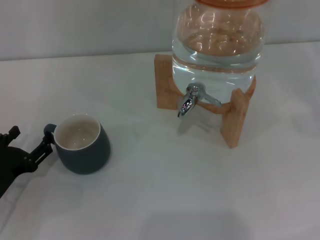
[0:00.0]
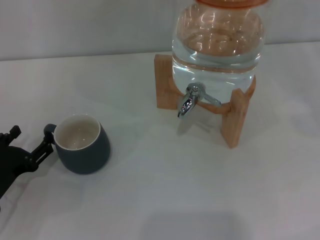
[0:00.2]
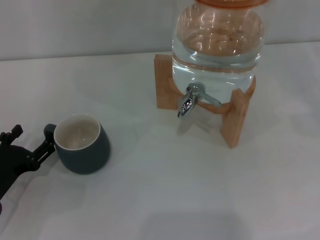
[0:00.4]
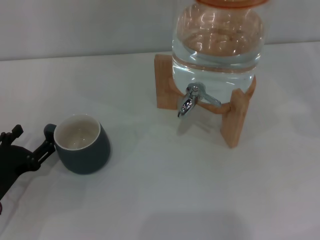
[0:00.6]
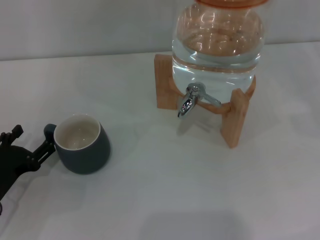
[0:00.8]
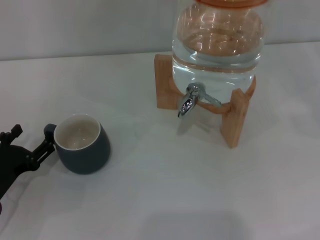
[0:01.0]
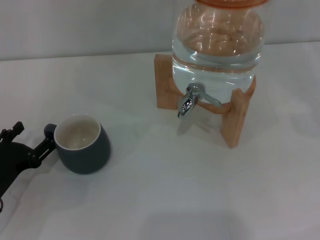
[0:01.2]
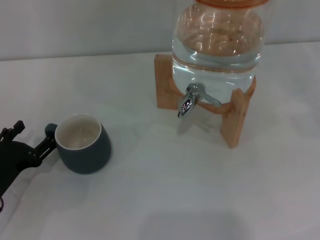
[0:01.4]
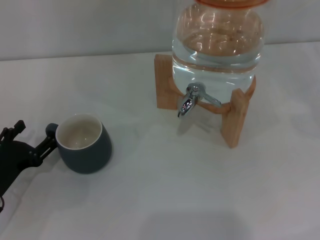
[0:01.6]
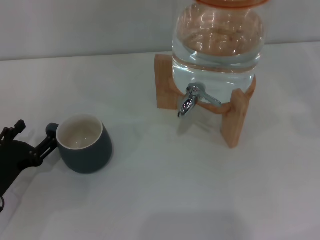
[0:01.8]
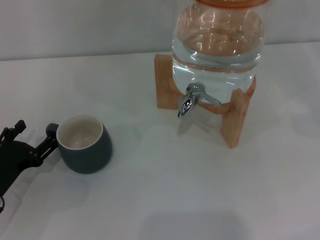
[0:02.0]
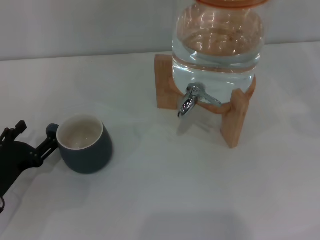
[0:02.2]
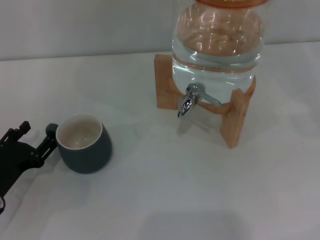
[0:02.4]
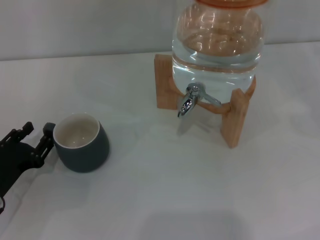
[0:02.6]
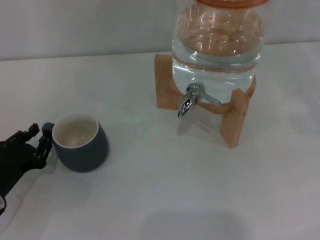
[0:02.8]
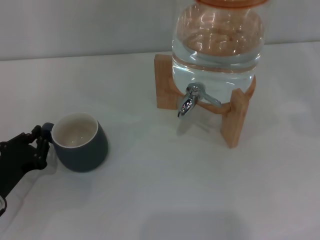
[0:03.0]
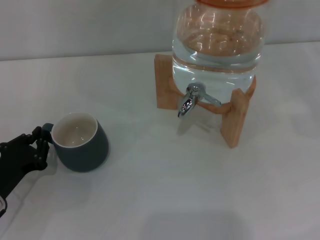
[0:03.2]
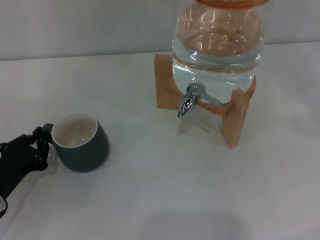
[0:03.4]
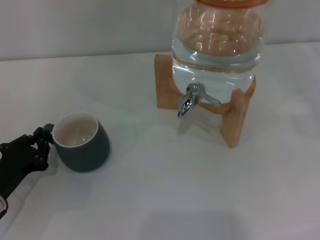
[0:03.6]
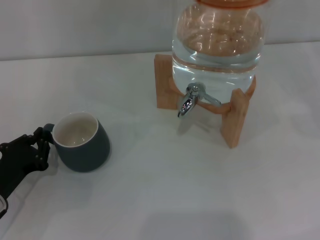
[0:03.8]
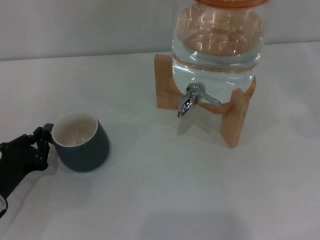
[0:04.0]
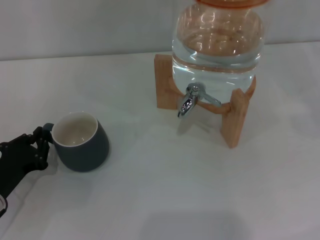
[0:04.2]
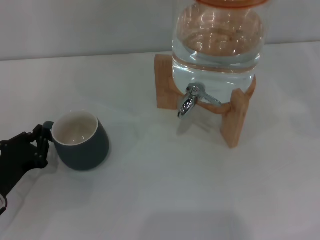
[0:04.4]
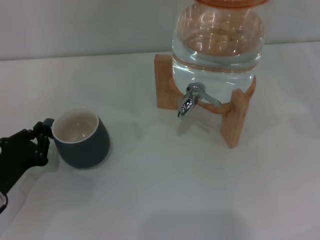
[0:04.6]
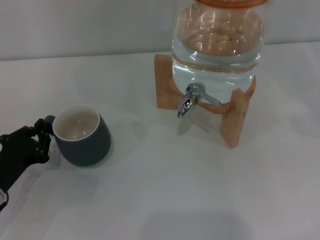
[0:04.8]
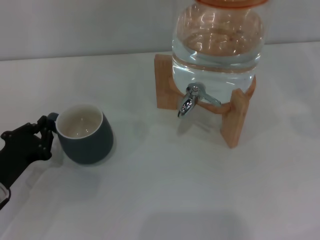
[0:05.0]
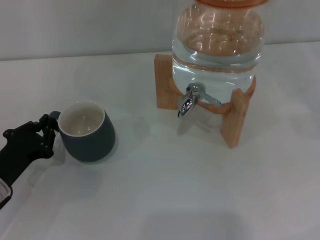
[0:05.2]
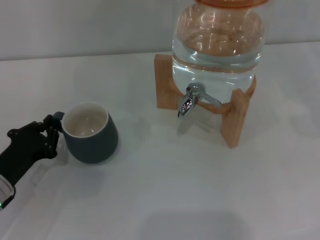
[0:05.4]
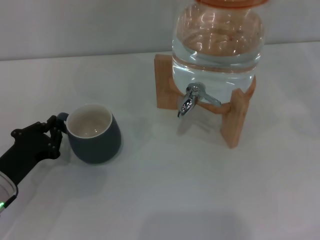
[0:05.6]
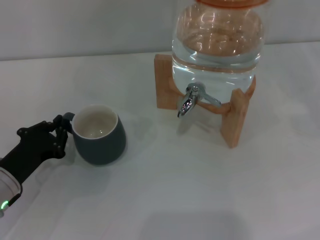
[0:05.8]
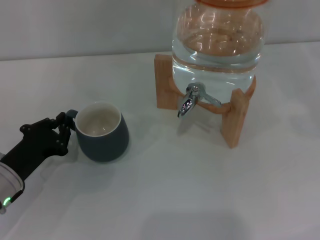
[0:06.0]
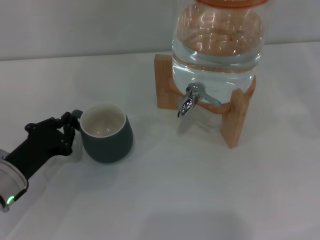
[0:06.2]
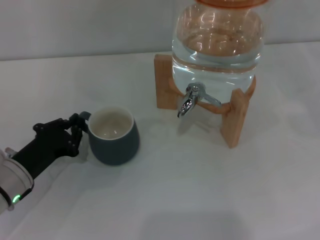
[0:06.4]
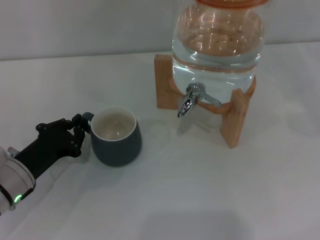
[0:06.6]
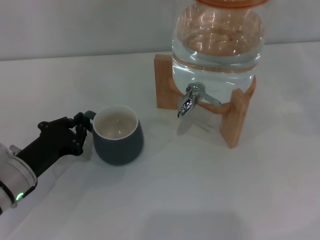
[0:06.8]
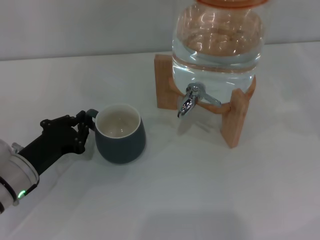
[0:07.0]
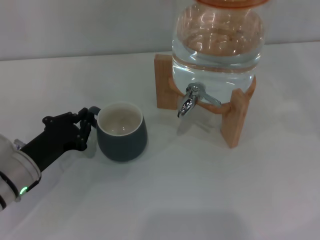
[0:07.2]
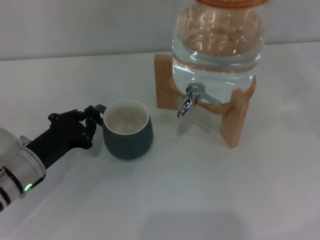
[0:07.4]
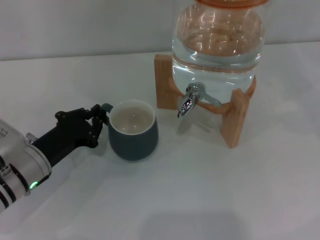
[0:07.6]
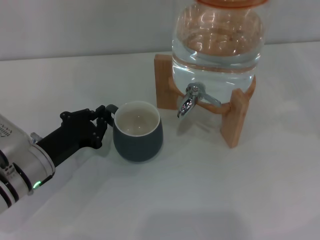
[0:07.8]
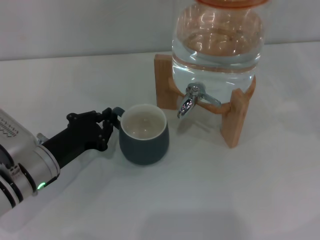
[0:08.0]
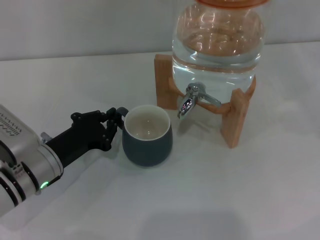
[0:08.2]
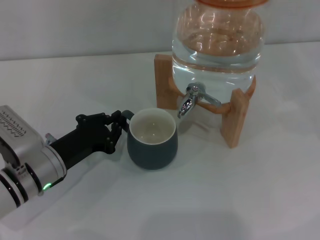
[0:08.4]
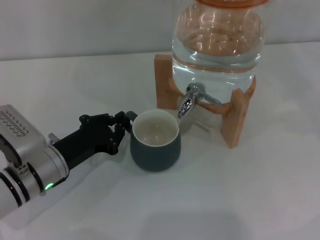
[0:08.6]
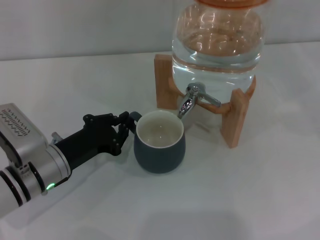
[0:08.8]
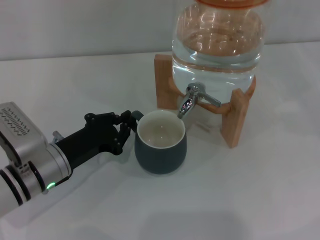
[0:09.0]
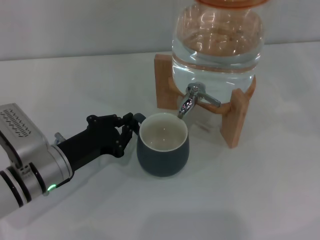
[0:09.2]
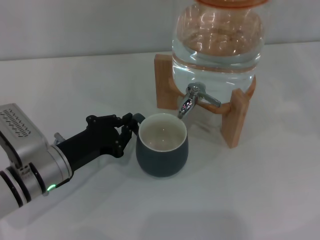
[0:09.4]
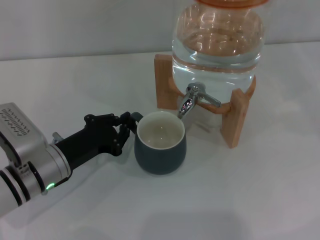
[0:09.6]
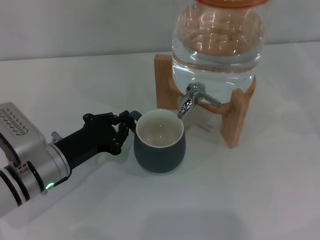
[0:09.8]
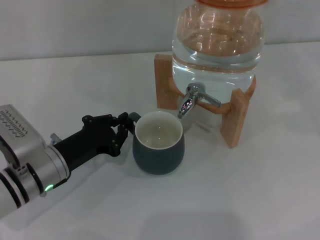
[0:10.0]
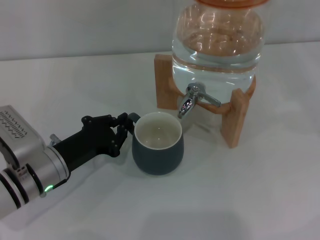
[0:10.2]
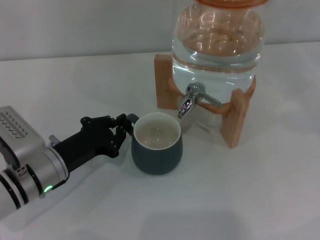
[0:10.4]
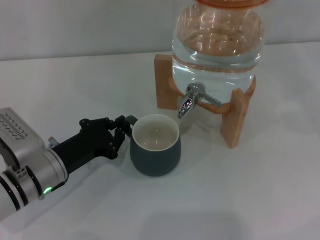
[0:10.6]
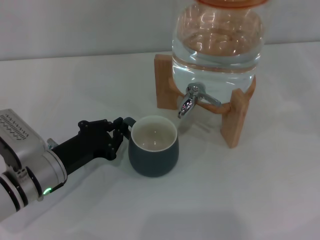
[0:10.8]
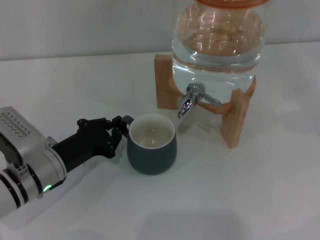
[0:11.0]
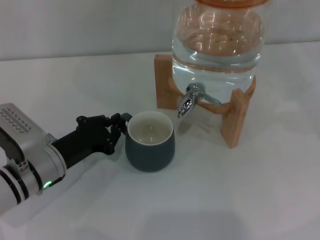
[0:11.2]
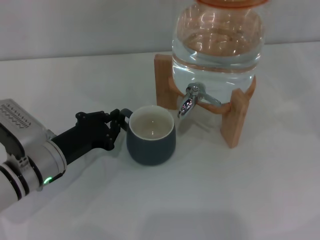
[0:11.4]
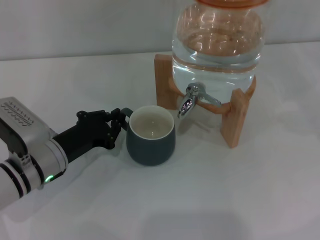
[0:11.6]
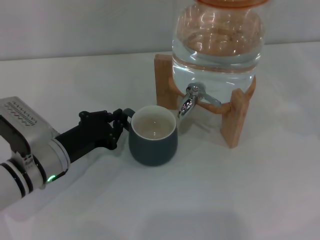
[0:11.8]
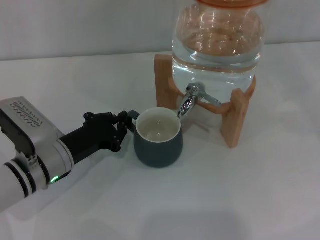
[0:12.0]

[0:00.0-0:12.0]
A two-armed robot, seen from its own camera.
Task of the whole recording: the left gripper pick up the black cup and place it horizontally under the faucet, the right gripper turn on the faucet to fill the cup, and then turn off the faucet.
0:00.0 to 0:01.6: Both grippers stay put.
0:01.6 to 0:03.0: The left gripper closes up.
0:03.0 to 0:04.4: The two grippers keep their place.
0:04.4 to 0:06.0: The grippers make only small movements.
0:06.0 to 0:07.6: There are only small adjustments of the grippers.
0:07.6 to 0:09.0: There are only small adjustments of the grippers.
0:09.0 to 0:10.4: Neither gripper changes place.
0:10.4 to 0:12.0: There are only small adjustments of the grippers.

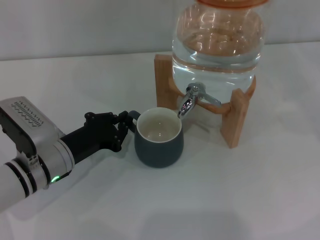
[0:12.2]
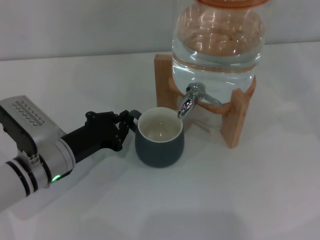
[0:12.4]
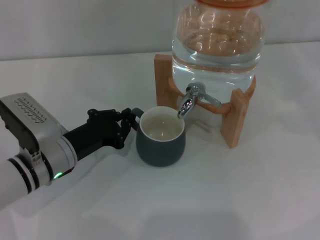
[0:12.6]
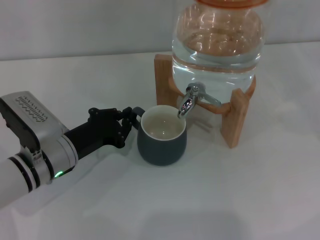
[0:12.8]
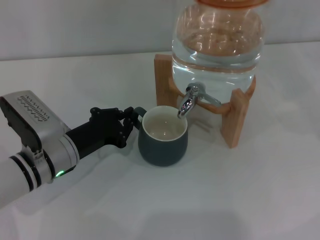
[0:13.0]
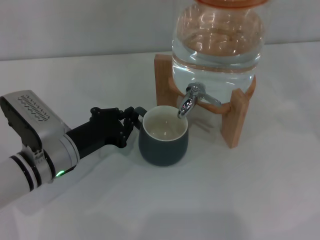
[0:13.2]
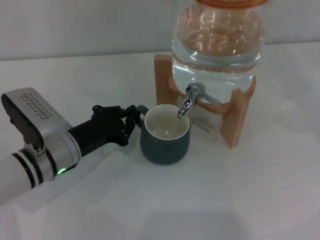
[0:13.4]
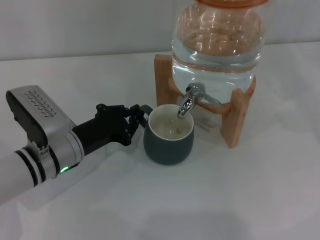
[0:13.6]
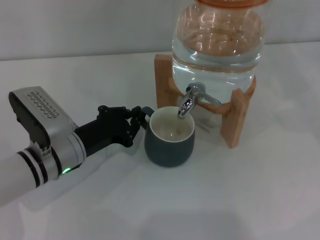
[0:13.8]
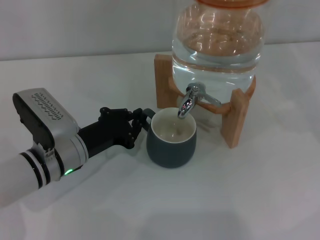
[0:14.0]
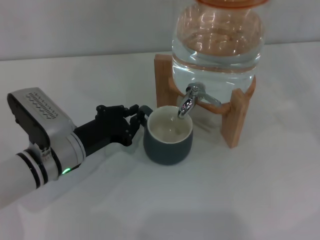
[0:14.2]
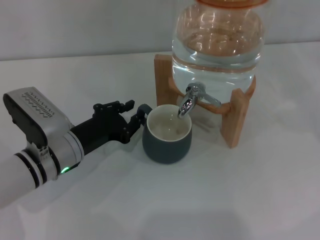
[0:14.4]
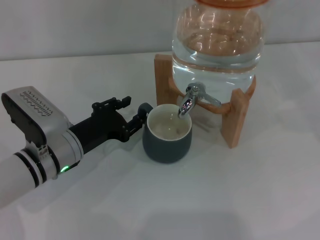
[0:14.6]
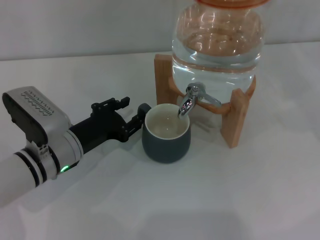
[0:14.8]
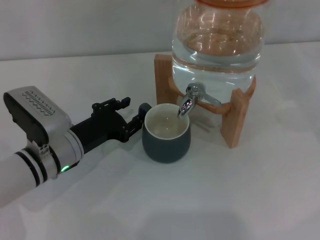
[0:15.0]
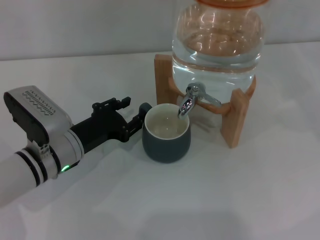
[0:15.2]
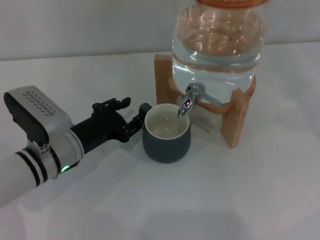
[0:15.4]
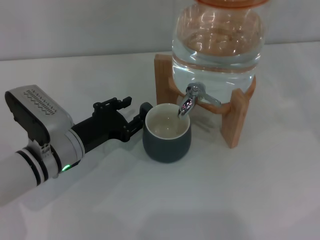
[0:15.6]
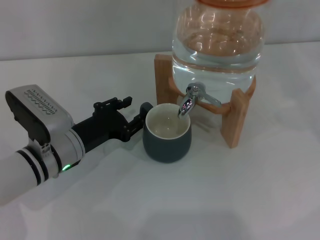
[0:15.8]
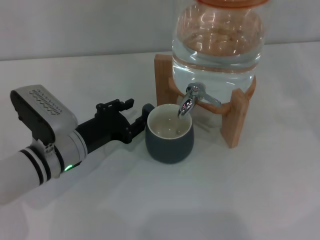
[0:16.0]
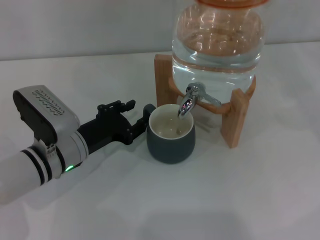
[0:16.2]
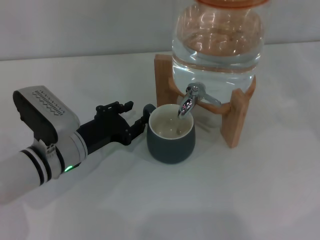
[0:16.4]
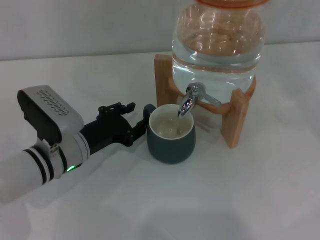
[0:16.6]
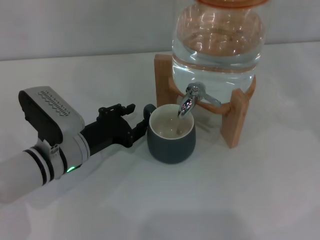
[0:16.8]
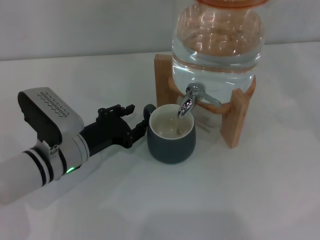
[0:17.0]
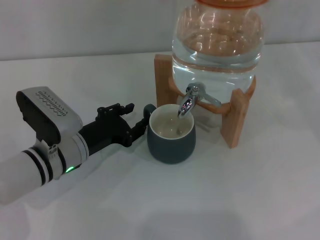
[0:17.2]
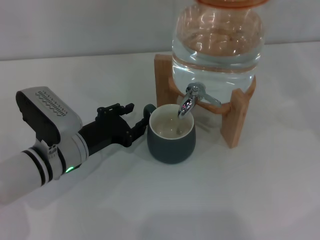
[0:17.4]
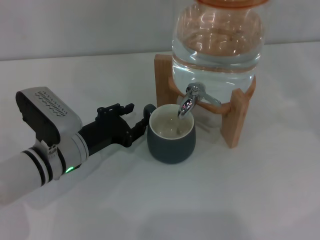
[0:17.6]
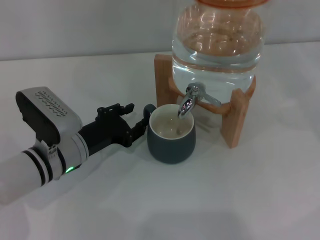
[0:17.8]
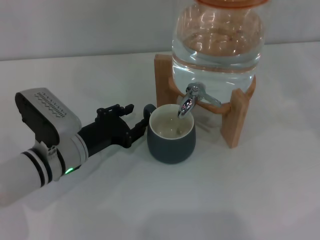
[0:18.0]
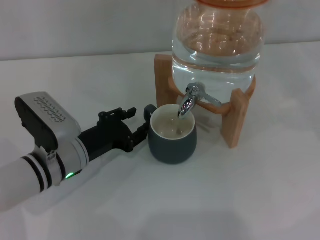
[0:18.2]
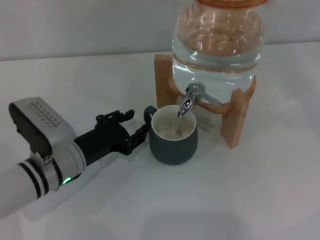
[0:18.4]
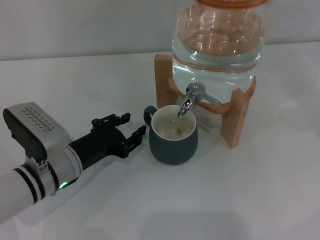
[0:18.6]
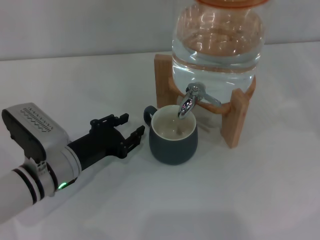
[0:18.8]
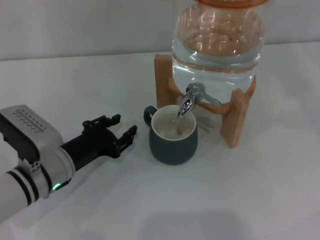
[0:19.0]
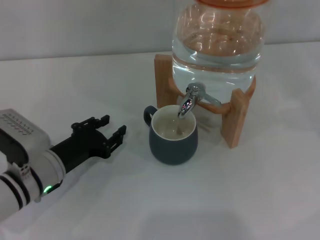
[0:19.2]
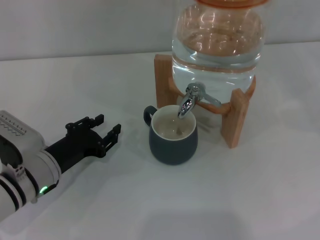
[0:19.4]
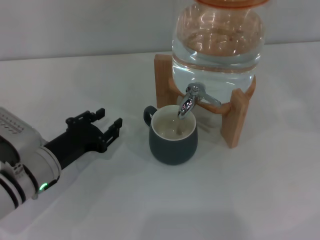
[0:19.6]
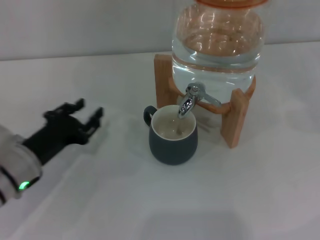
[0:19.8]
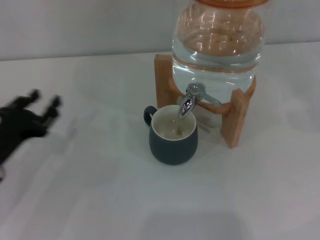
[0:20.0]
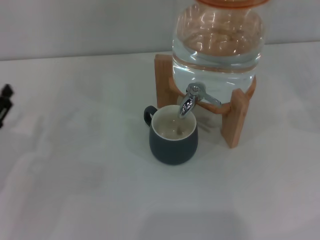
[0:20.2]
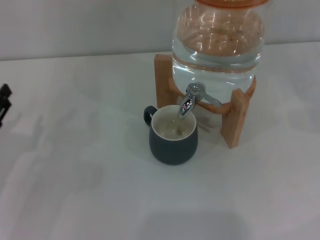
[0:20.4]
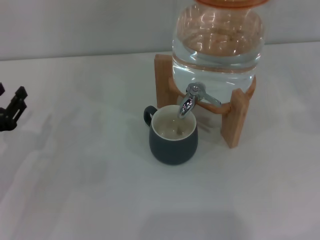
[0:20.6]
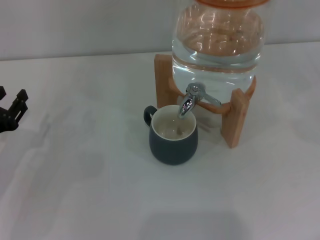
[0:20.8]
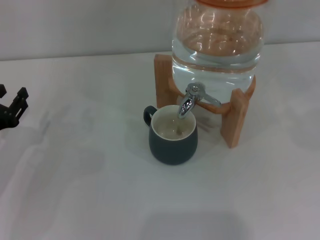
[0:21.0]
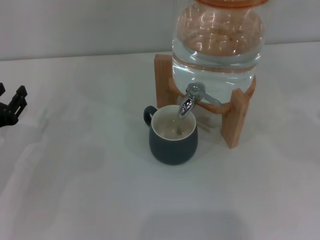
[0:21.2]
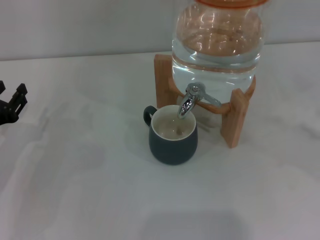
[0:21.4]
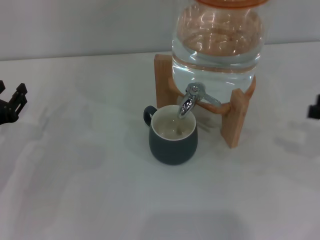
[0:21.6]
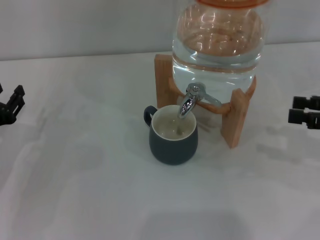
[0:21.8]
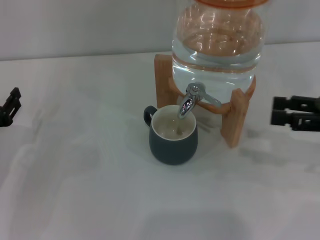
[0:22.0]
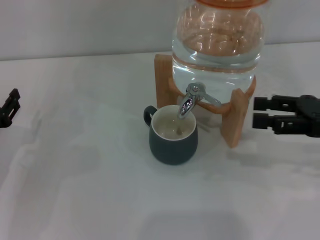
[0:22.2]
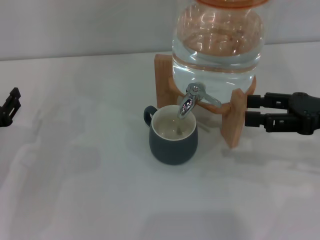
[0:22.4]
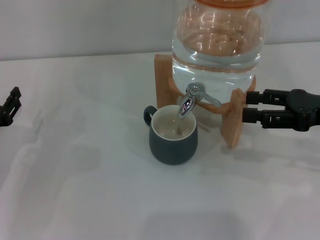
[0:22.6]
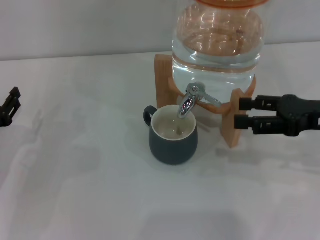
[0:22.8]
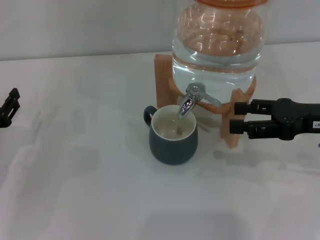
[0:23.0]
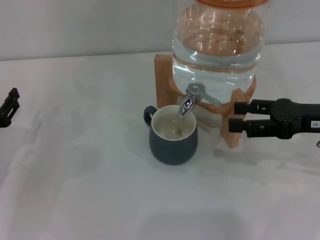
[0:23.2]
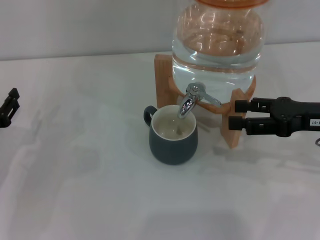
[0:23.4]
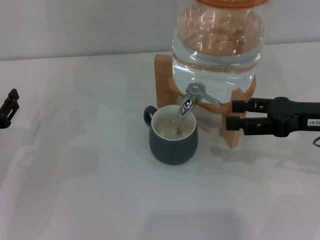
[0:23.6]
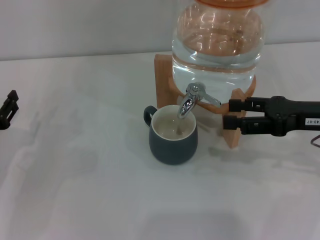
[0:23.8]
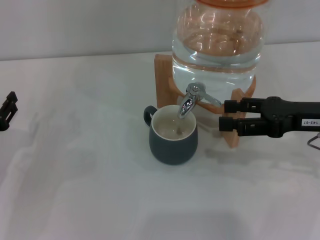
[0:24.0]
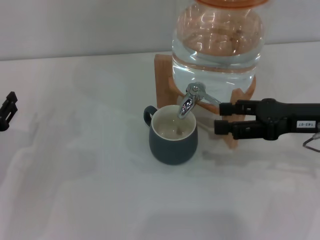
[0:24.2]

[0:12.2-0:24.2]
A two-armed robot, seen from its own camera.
Task of the whole recording: the left gripper pick up the black cup and place it horizontally under the faucet, the right gripper turn on the faucet to fill the cup, and then turn off the faucet.
Step, 0:12.2 to 0:19.0: Move the cup beneath the water dispenser nozzle with the left gripper.
0:12.2 to 0:13.8: The grippers make only small movements.
0:13.8 to 0:15.2: The left gripper opens up.
0:15.2 to 0:16.6: Neither gripper changes place.
0:16.6 to 0:18.2: Both grippers stay about where they are.
0:18.2 to 0:19.8: The left gripper moves to the left, roughly 5 cm.
0:19.8 to 0:21.2: The left gripper travels to the left by about 10 cm.
0:21.2 to 0:22.6: The right gripper is displaced to the left by some 15 cm.
0:22.6 to 0:24.2: The grippers make only small movements.
